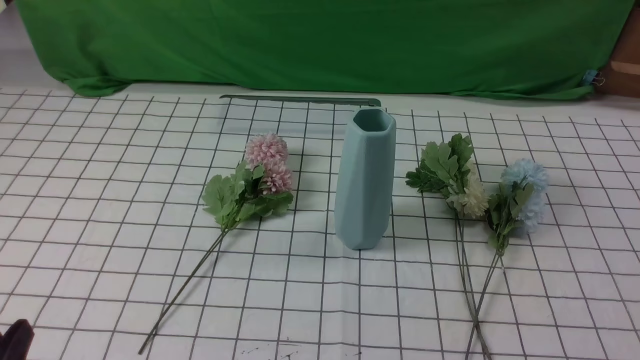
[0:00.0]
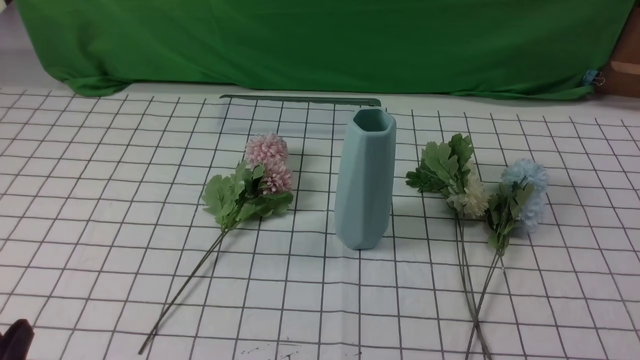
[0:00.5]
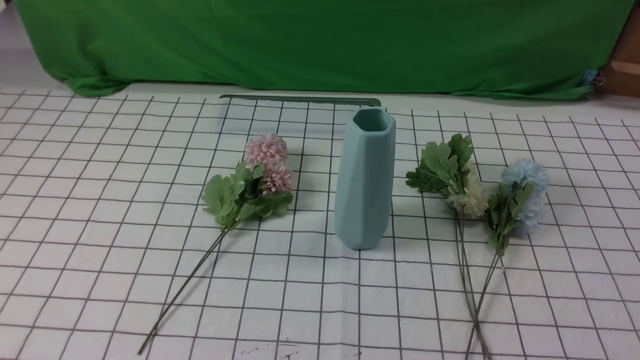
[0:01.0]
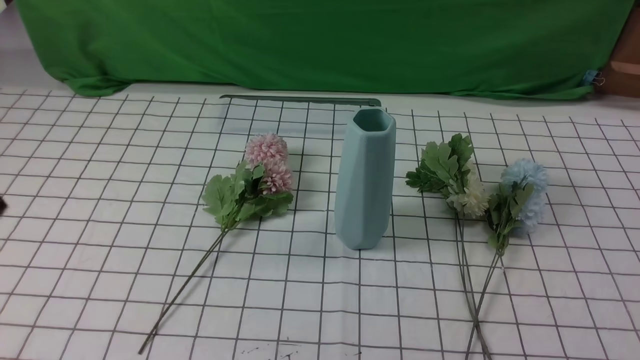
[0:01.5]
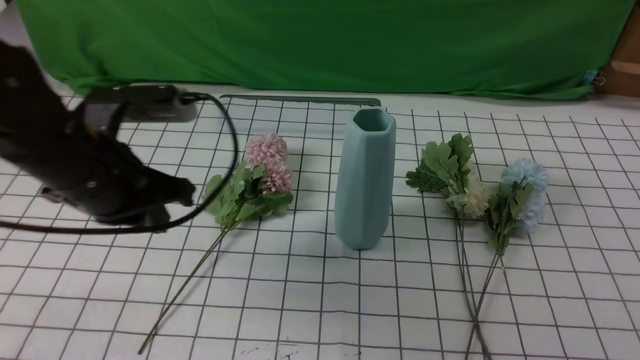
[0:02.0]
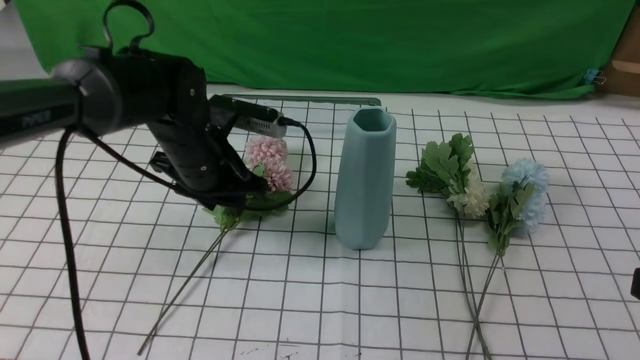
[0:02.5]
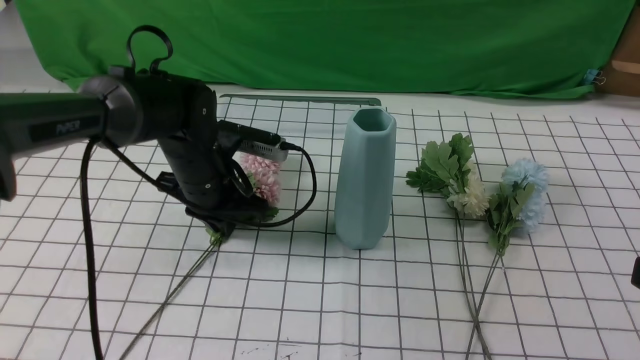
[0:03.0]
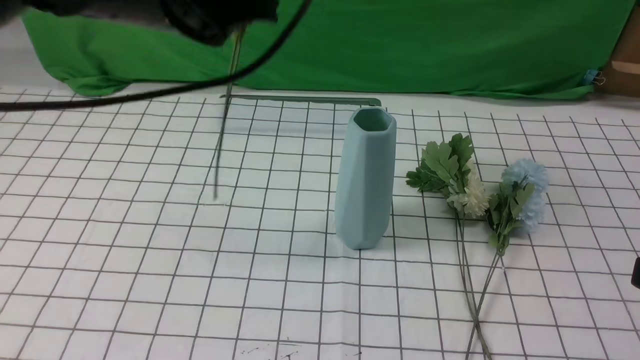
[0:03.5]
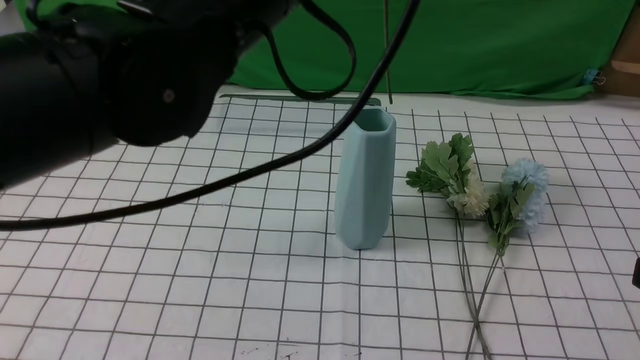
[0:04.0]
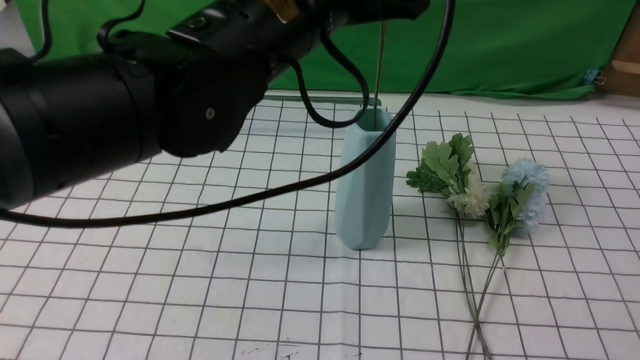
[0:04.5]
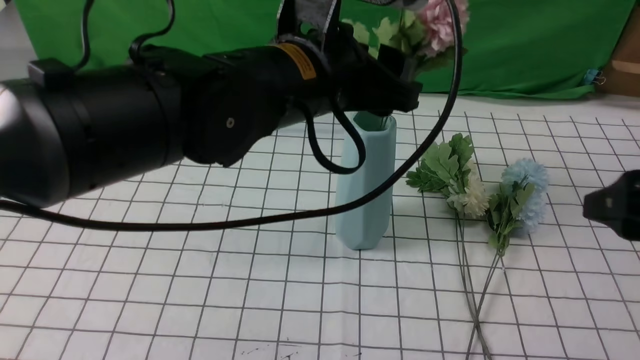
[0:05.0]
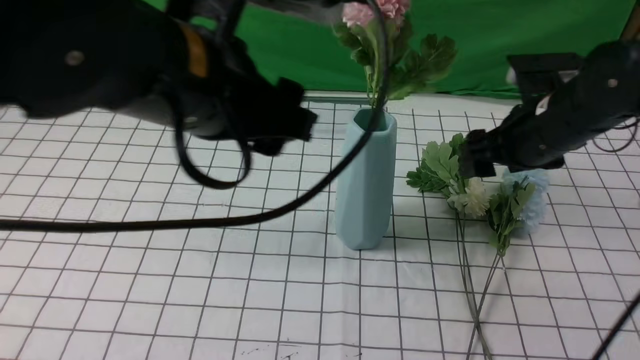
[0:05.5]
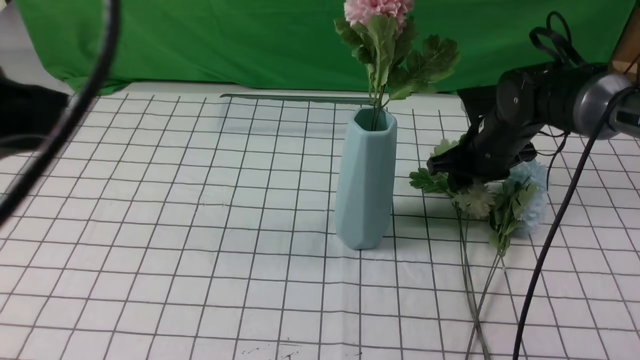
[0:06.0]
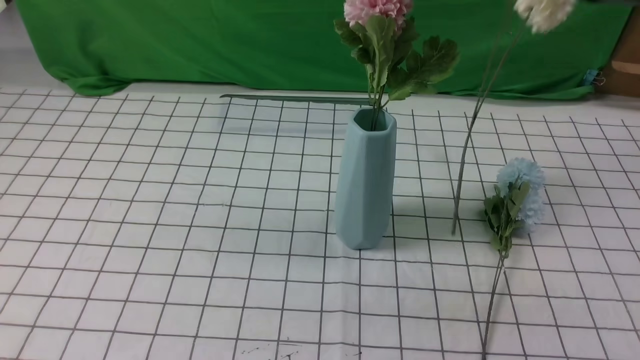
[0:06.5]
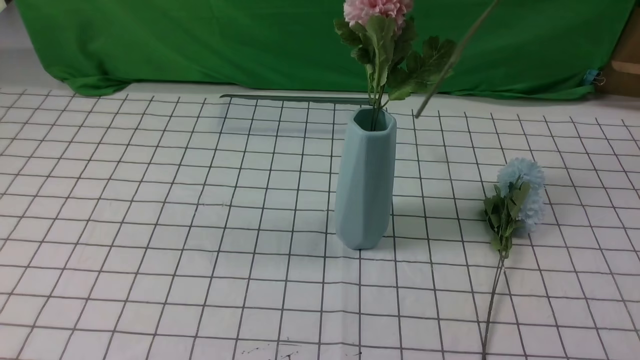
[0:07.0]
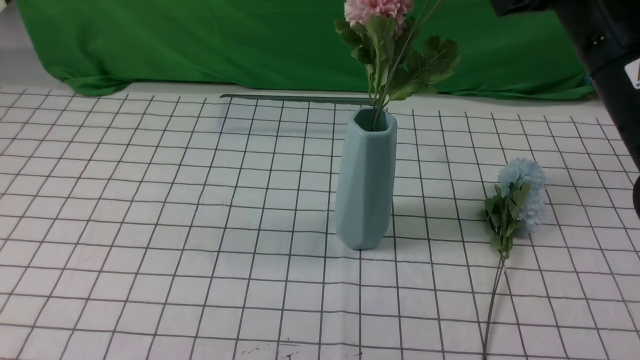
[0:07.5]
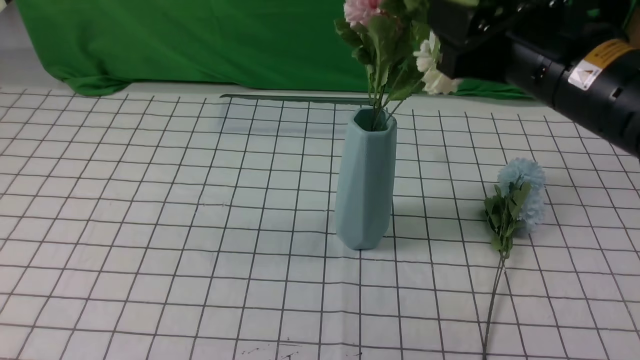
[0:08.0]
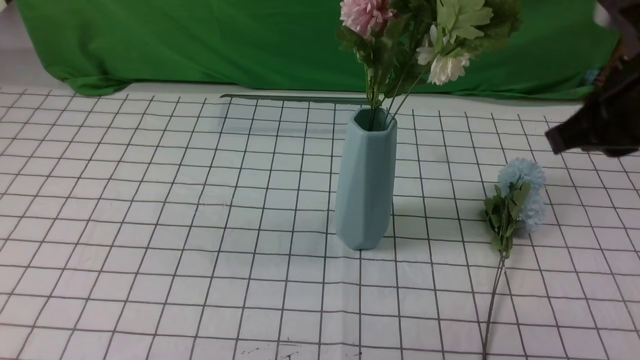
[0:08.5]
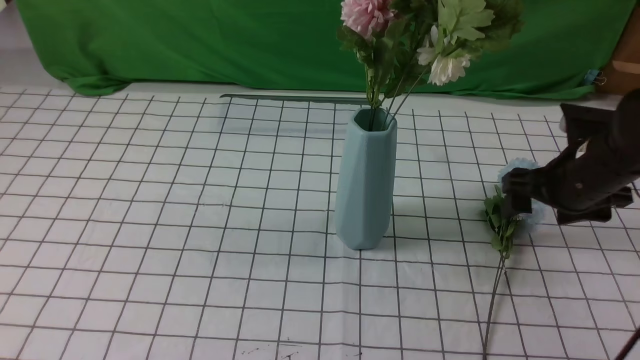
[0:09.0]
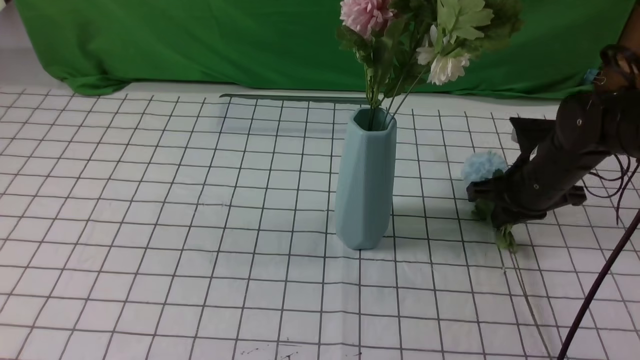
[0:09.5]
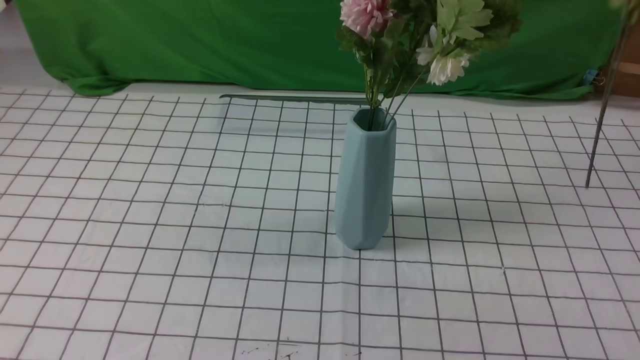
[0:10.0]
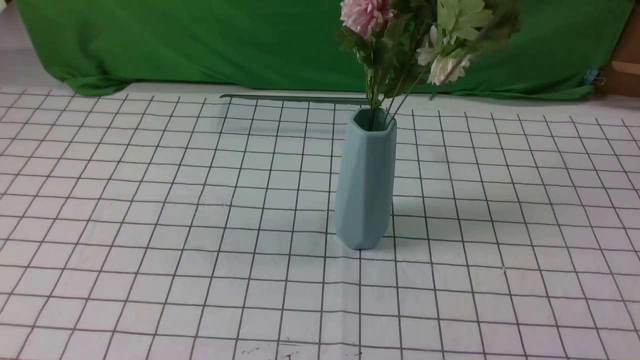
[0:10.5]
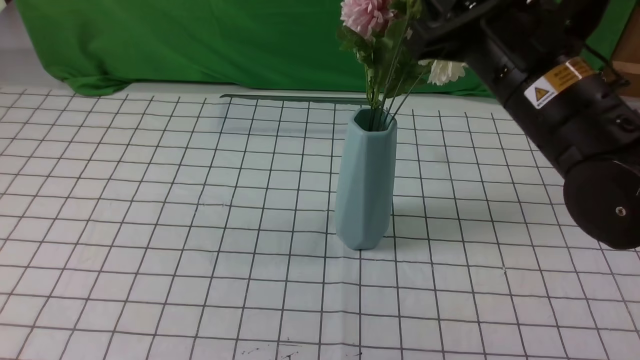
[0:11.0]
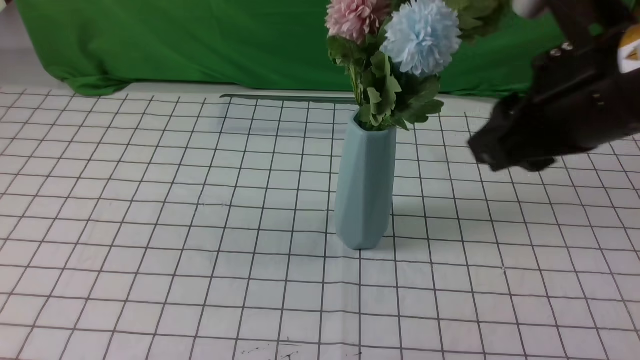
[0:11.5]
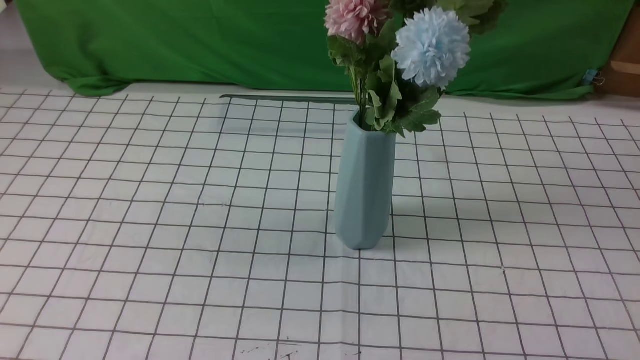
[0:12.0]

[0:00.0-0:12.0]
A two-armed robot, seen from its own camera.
Task of the whole recording: insert the flowers into the vase on the table with the white tablecloth.
Step, 0:00.0 to 0:03.0: use the left arm to grab a bunch of fresh flowers.
Step, 0:03.5 to 0:05.0: use the left arm to insert the flowers into the vase.
Step, 0:05.5 to 0:06.0: use the right arm to grab a bunch of fresh flowers.
Step, 0:06.5 to 0:08.0: use the right arm to insert the flowers into the vase.
Step, 0:08.5 to 0:09.0: use the right arm to grab a bunch of fresh flowers.
Step, 0:09.5 to 0:11.0: use the right arm to insert the flowers into the vase.
0:02.0 to 0:04.0: The left gripper shifts some 20 cm to the right and upward, and opens, then closes once more; the right gripper goes some 5 cm upward and forward, and opens up.
0:04.0 to 0:06.0: The right gripper goes about 35 cm forward and downward. The left gripper shifts some 20 cm backward and to the left, and opens, then closes once more.
0:06.0 to 0:08.0: The right gripper moves upward and backward, some 25 cm, and closes, then reopens; the left gripper moves about 5 cm.
0:08.0 to 0:10.0: The right gripper travels to the right by some 10 cm, goes downward and returns, some 20 cm each way, and closes its fingers.
0:10.0 to 0:12.0: The right gripper moves forward and backward over roughly 20 cm, changing direction 2 times, and opens, then closes again.

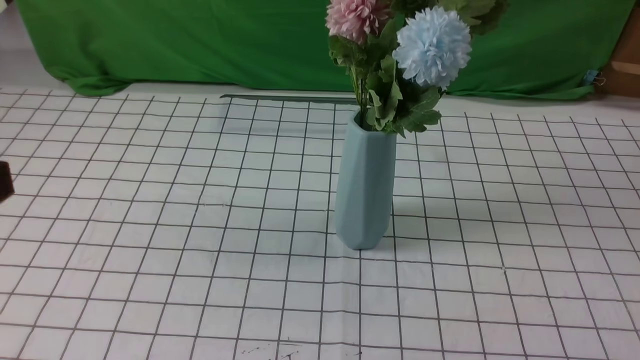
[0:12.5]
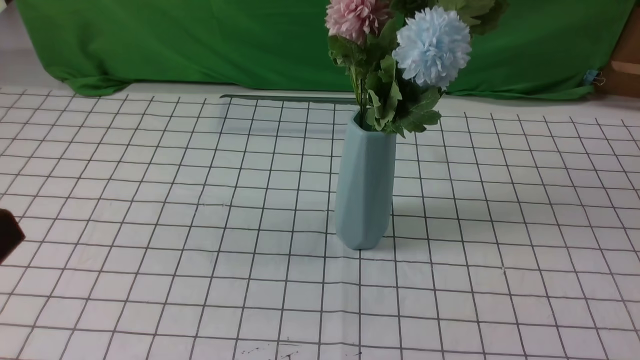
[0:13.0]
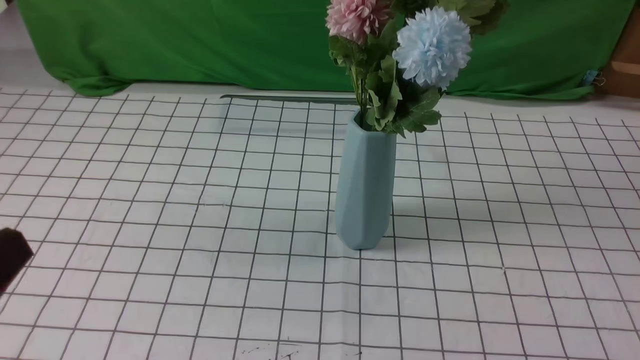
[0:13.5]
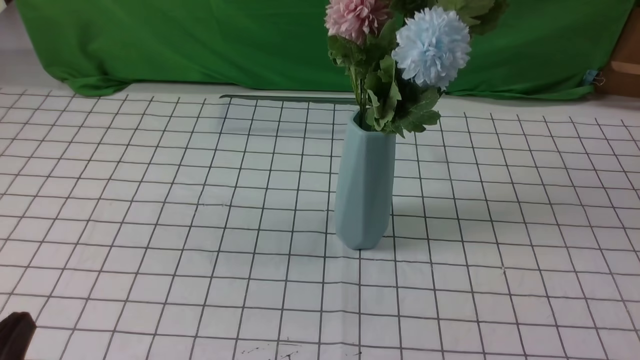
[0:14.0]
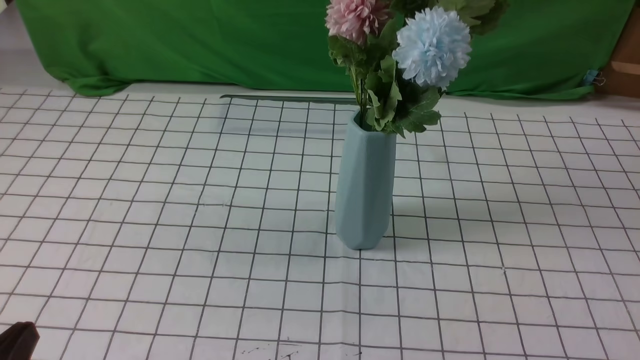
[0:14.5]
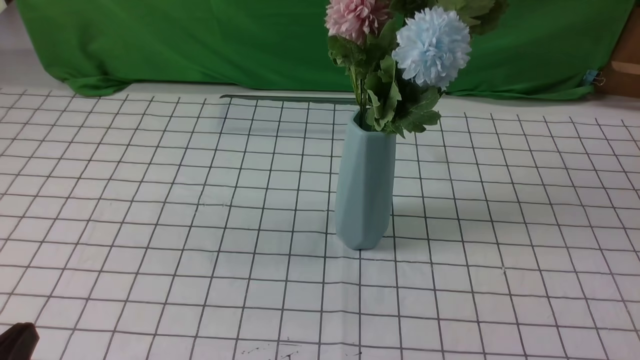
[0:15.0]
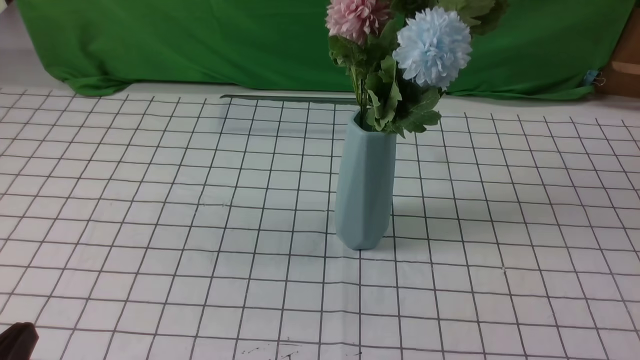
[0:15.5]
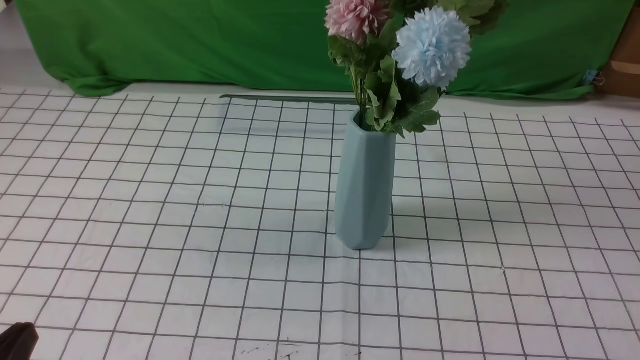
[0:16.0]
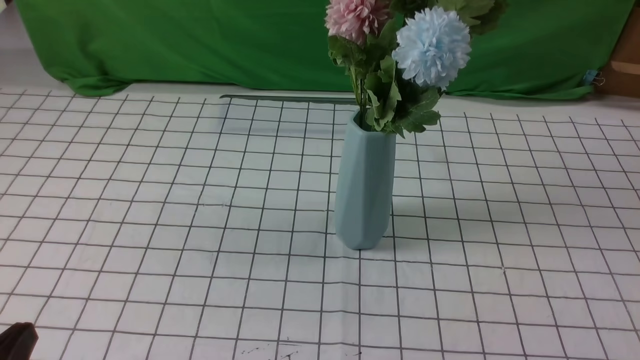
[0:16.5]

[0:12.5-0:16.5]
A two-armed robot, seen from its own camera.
Task of the whole recording: insert the flowers into the vase on the table with the white tablecloth.
0:12.5 to 0:14.5: The left gripper travels downward by about 20 cm.
